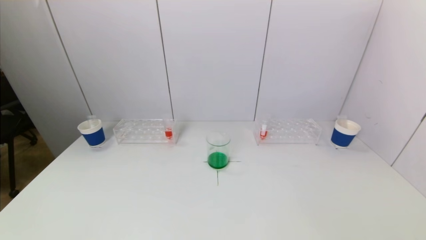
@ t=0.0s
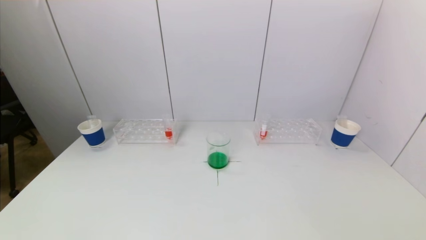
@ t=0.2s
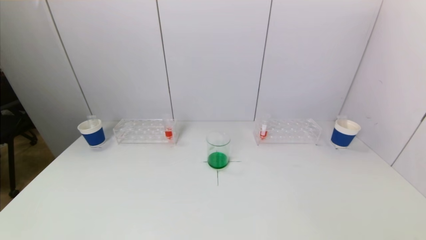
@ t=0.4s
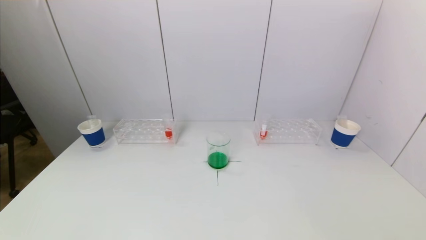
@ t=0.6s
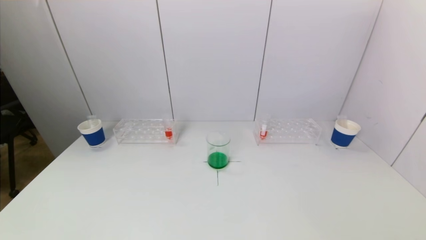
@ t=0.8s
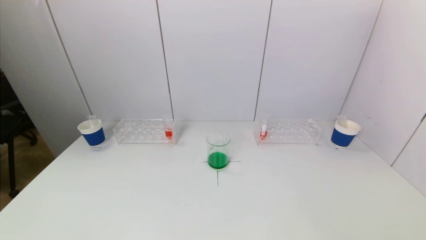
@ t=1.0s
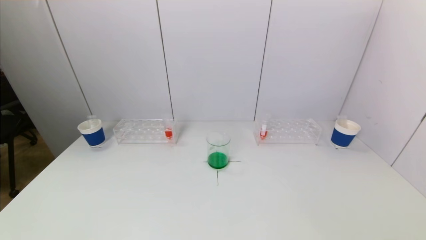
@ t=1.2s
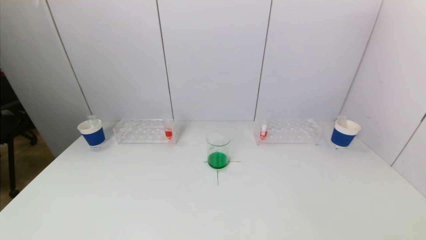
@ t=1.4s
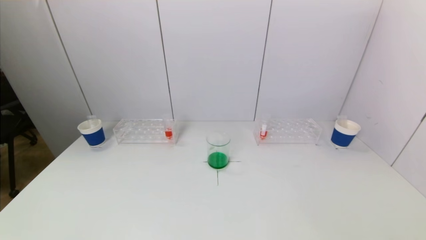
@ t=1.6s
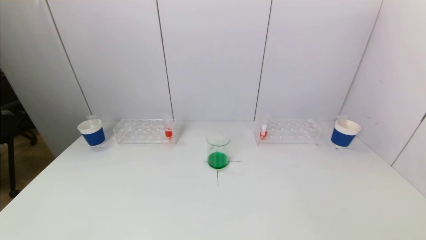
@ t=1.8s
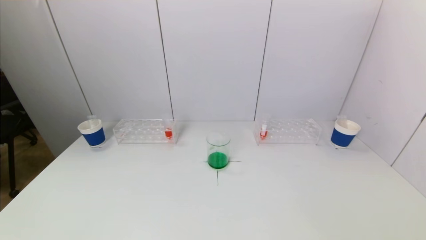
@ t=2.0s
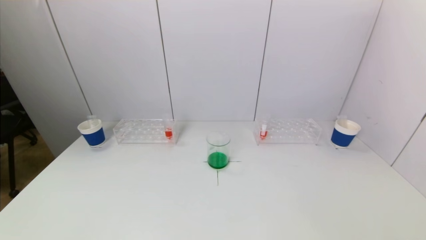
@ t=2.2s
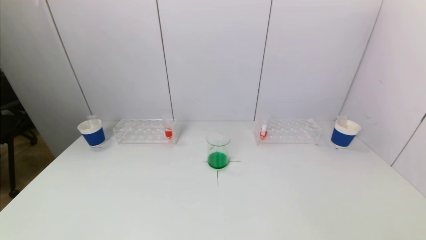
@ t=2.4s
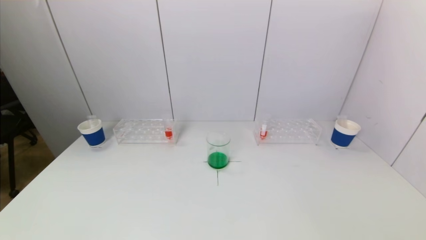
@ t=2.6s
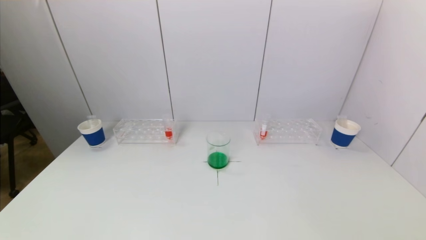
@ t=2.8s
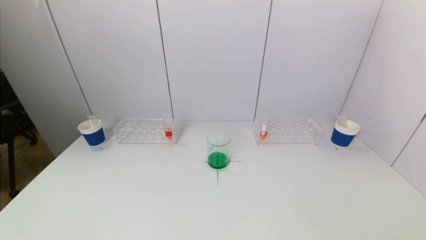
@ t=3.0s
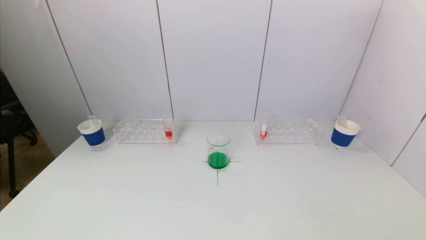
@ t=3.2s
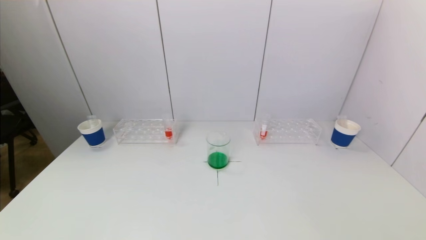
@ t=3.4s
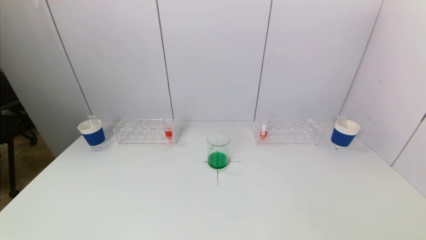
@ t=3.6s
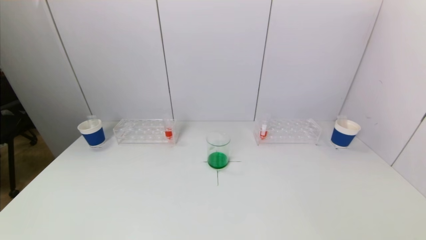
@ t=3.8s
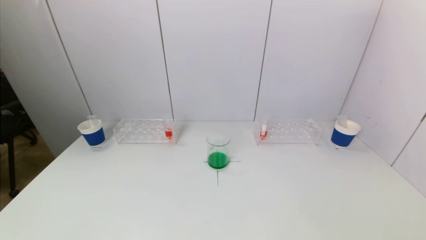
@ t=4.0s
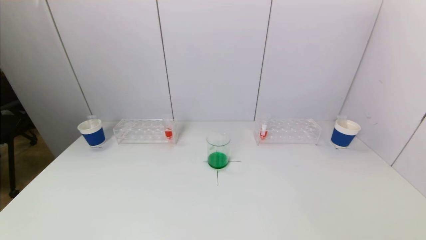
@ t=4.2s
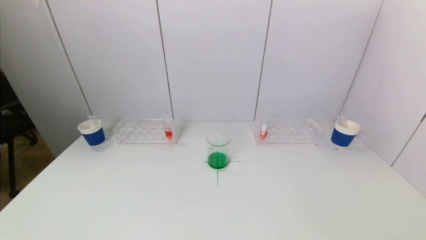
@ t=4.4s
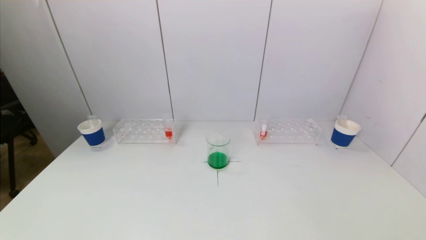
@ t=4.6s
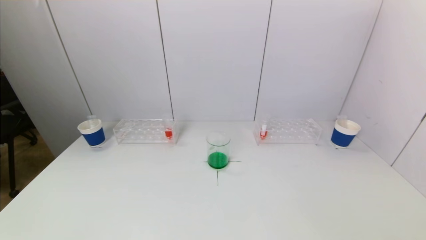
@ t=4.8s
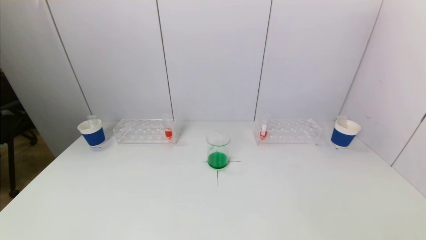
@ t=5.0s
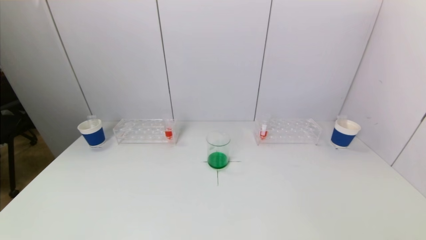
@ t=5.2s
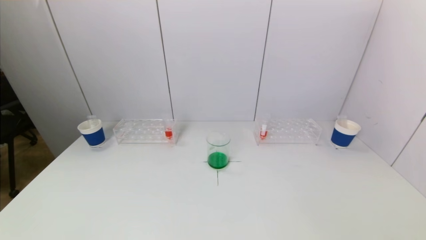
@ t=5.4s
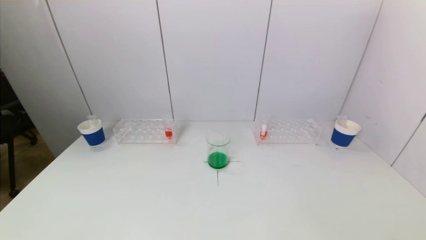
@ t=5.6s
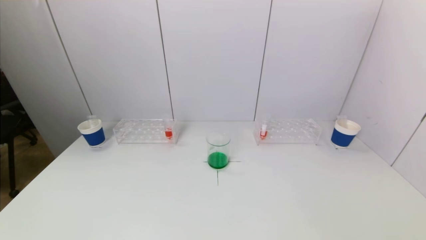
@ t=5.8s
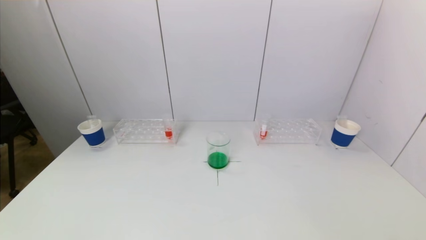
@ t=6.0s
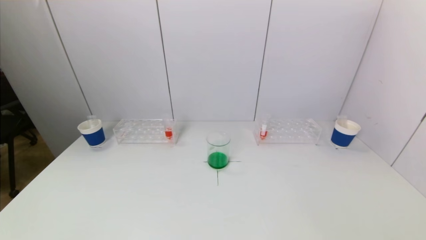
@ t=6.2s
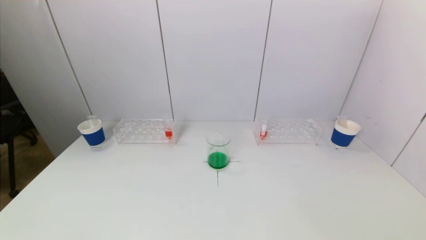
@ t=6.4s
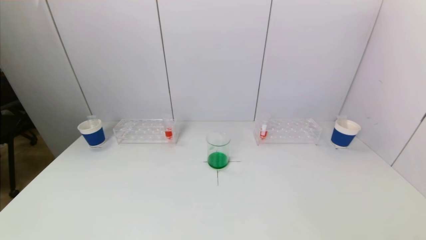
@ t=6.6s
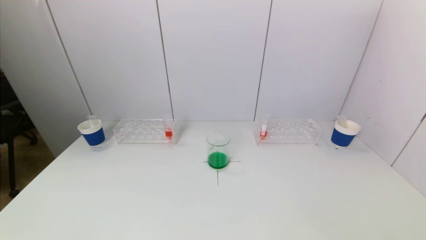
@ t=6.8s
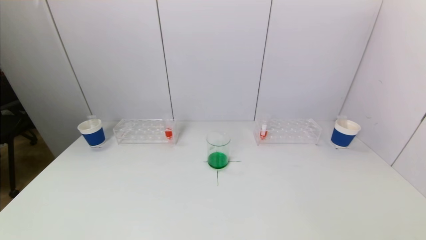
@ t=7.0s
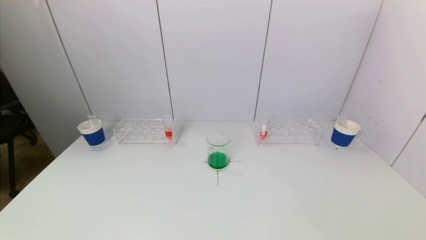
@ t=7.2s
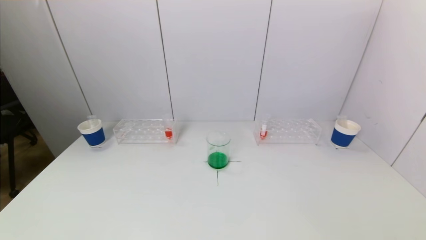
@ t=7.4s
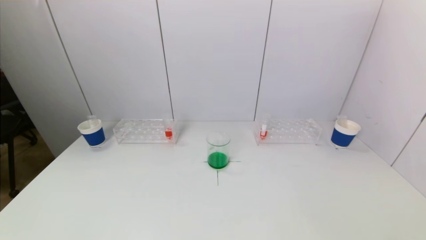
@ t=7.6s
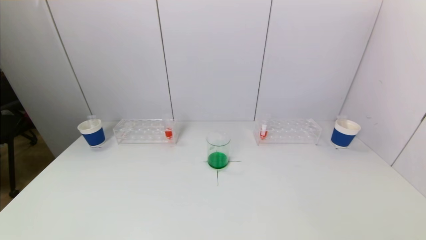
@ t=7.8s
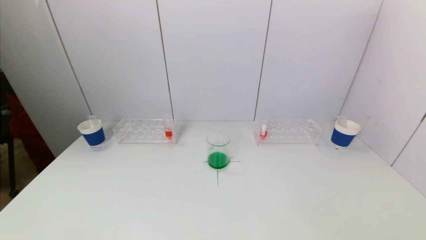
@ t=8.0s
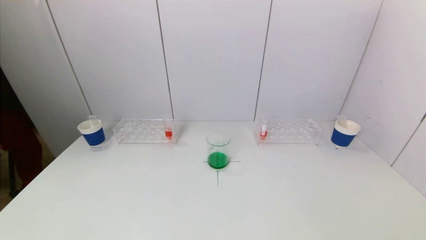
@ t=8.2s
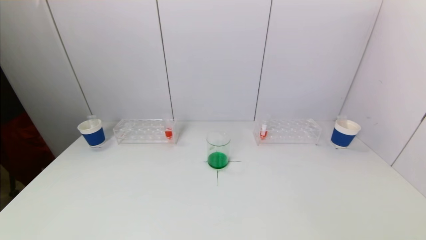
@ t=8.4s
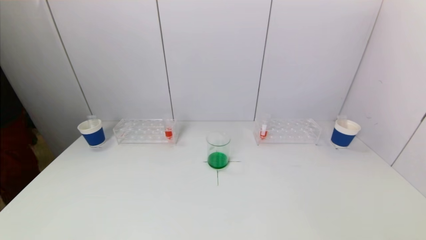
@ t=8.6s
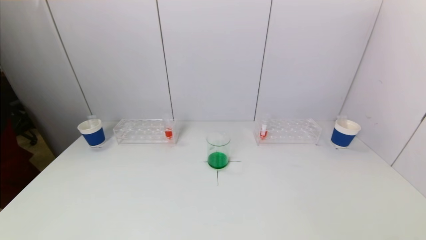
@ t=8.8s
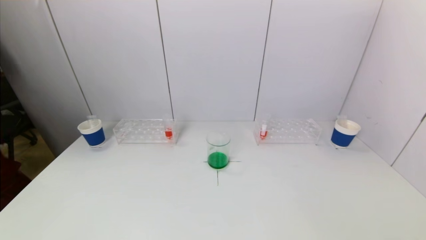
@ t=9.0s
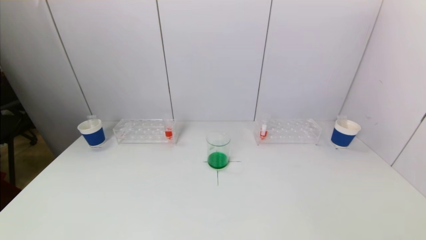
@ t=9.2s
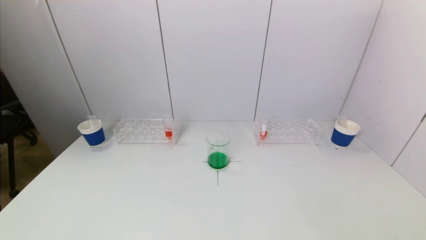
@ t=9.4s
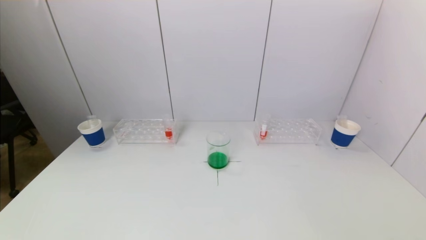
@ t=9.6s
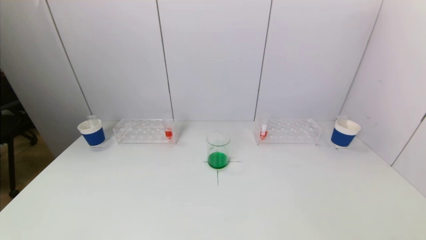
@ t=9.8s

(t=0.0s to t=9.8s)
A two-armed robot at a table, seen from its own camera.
Task of the whole recording: pick up a test tube with pigment on left test tube rack and a test tube with pigment on right test tube rack by grippers and pour them into the beaker.
t=0.0s - t=9.8s: Both grippers stay put.

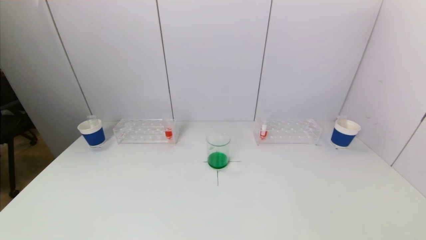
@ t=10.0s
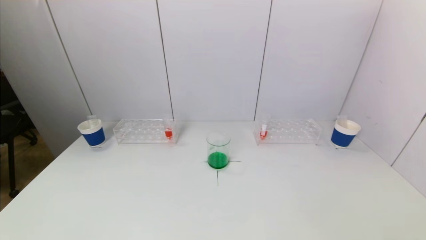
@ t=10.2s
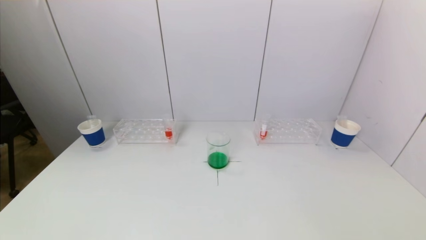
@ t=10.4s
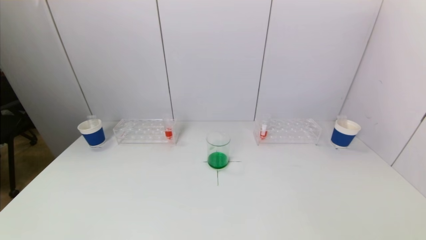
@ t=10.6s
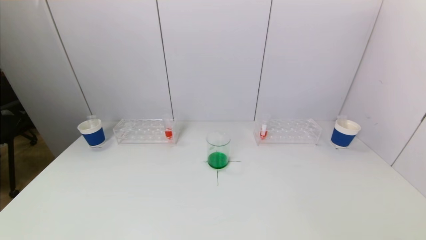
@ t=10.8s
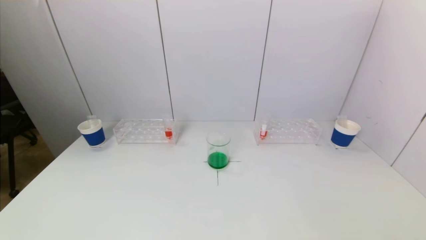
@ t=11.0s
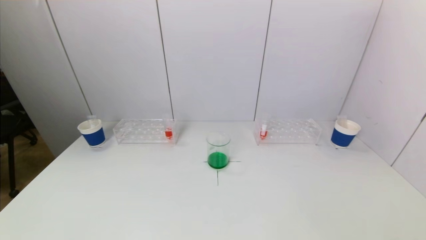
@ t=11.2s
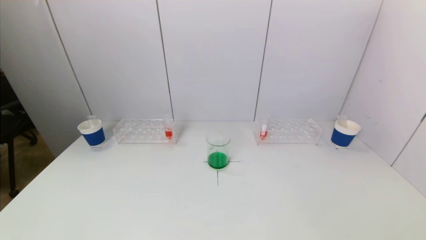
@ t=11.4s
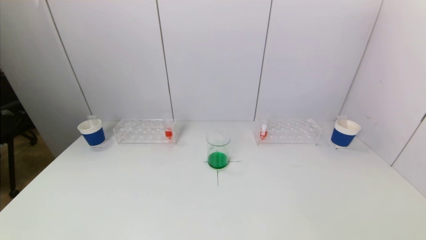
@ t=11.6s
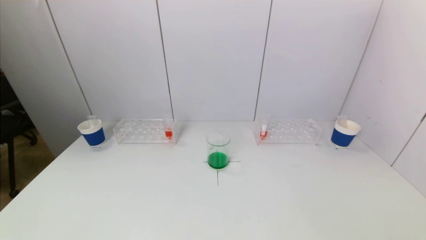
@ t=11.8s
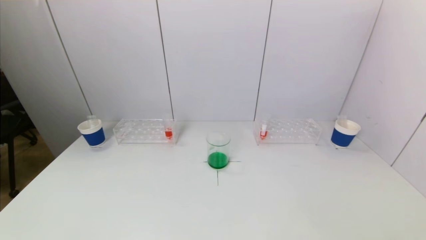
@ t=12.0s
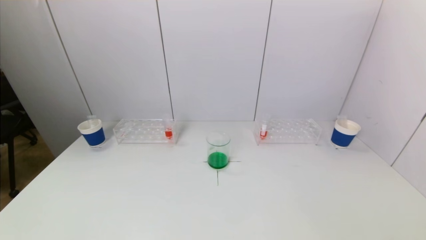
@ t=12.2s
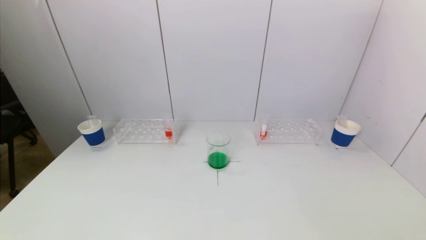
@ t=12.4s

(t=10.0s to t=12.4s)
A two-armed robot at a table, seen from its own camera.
Task of the whole recording: pick up a test tube with pigment on left test tube rack and a test tube with pigment on right test tube rack by grippers and pour them into the beaker.
t=10.0s - t=12.4s: Both grippers stay about where they are.
